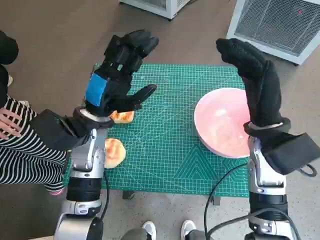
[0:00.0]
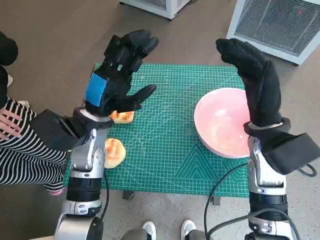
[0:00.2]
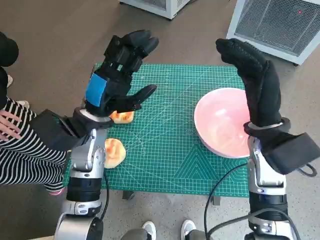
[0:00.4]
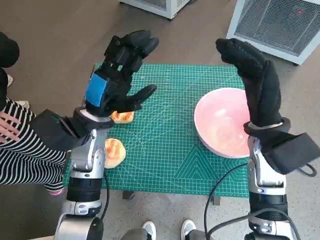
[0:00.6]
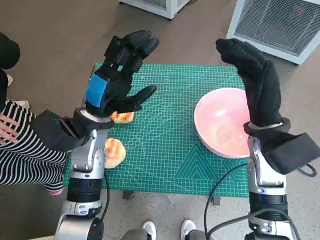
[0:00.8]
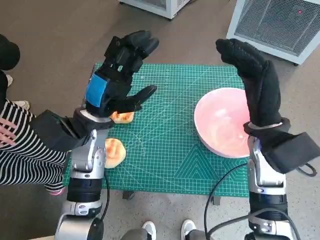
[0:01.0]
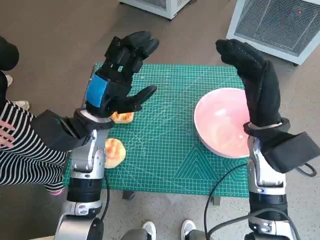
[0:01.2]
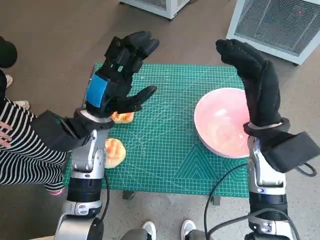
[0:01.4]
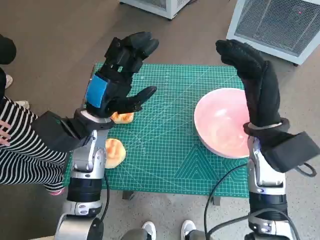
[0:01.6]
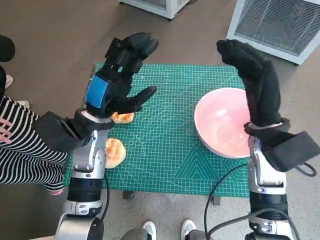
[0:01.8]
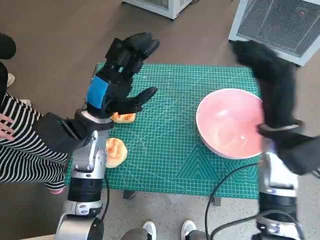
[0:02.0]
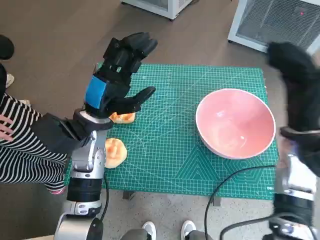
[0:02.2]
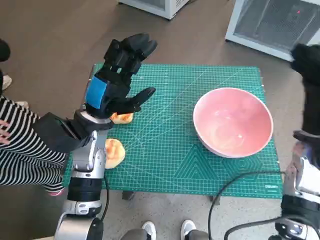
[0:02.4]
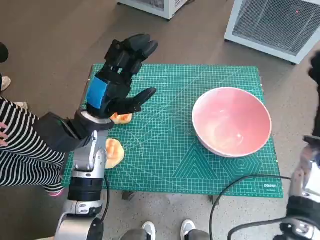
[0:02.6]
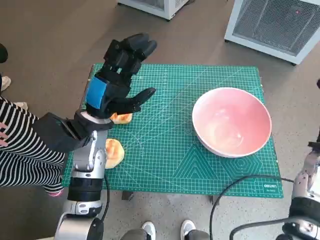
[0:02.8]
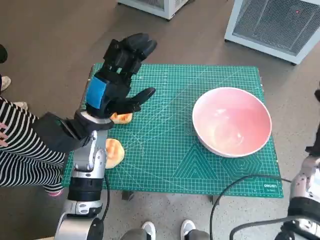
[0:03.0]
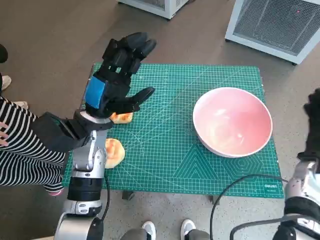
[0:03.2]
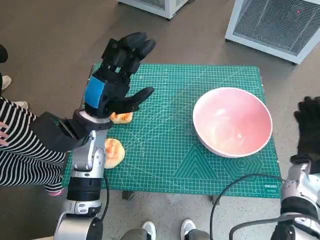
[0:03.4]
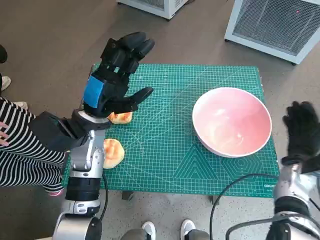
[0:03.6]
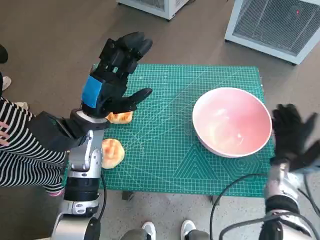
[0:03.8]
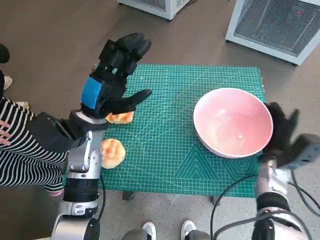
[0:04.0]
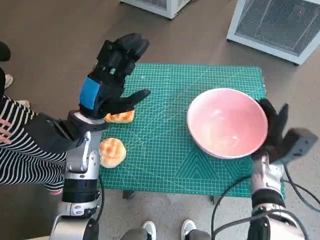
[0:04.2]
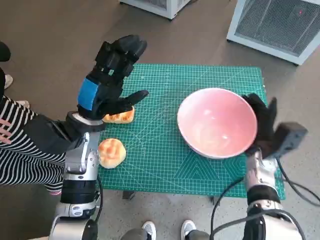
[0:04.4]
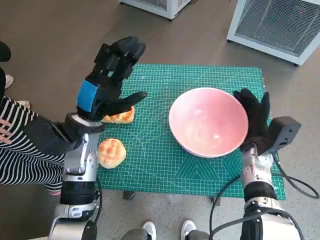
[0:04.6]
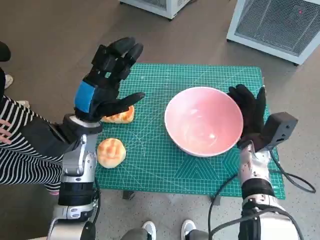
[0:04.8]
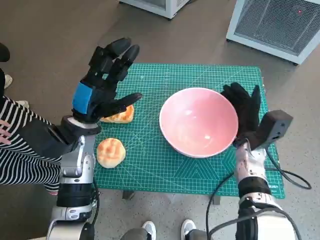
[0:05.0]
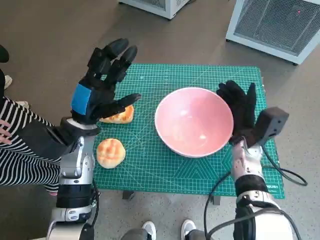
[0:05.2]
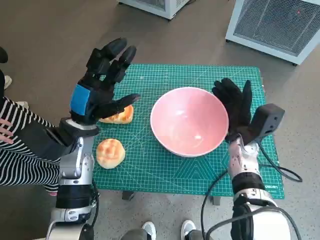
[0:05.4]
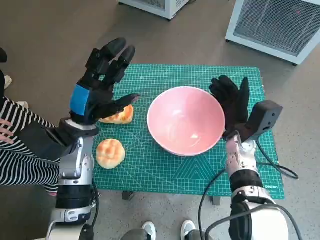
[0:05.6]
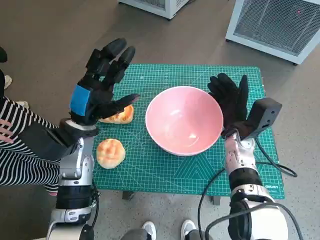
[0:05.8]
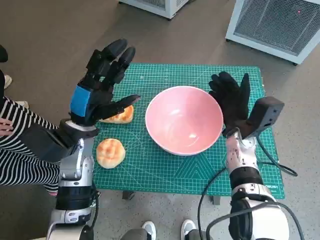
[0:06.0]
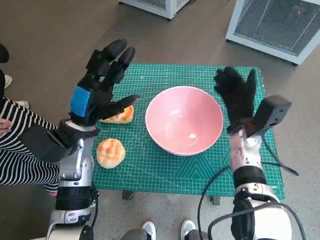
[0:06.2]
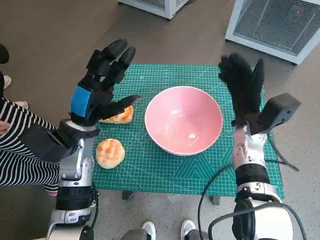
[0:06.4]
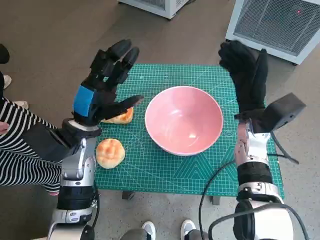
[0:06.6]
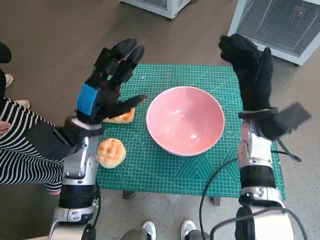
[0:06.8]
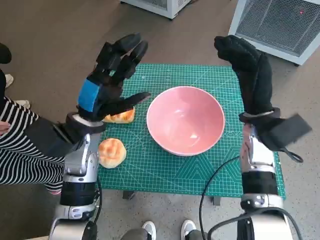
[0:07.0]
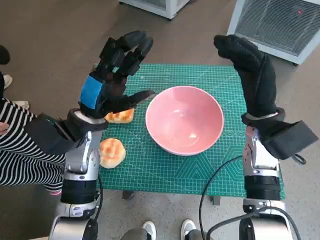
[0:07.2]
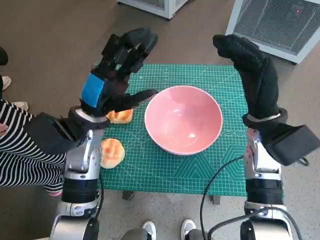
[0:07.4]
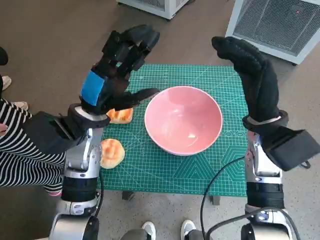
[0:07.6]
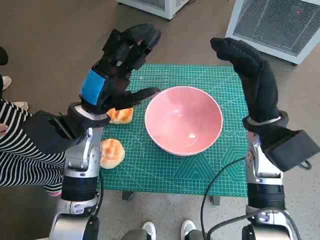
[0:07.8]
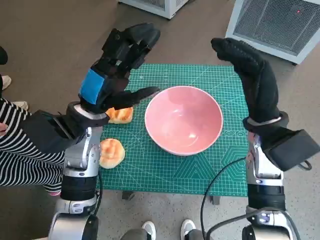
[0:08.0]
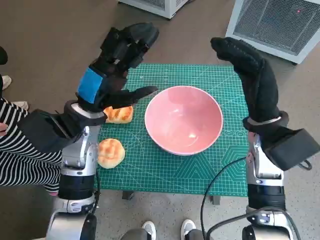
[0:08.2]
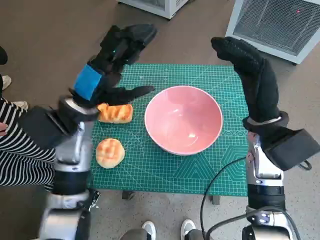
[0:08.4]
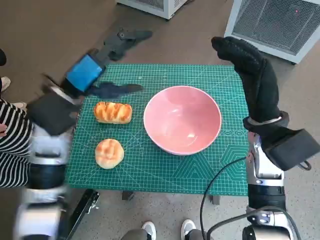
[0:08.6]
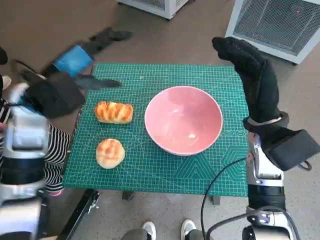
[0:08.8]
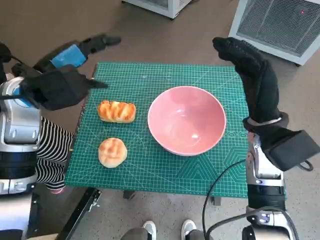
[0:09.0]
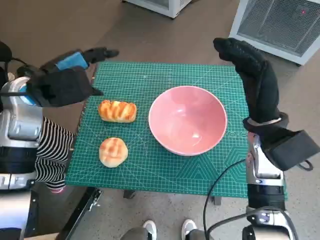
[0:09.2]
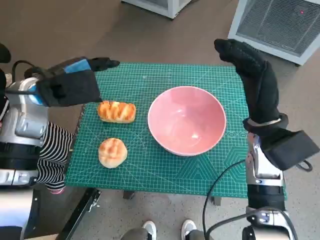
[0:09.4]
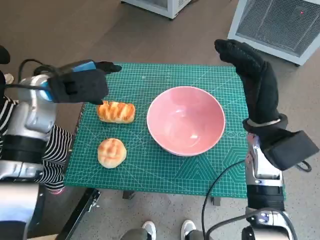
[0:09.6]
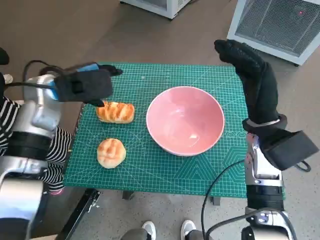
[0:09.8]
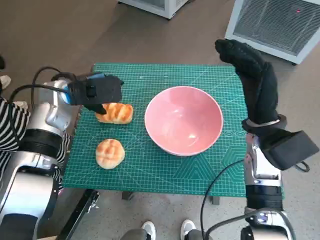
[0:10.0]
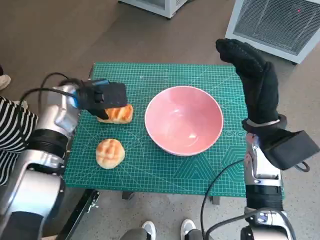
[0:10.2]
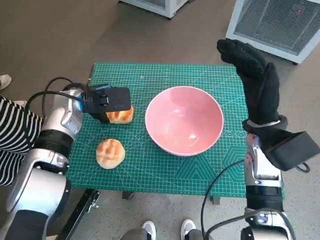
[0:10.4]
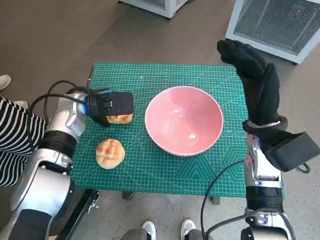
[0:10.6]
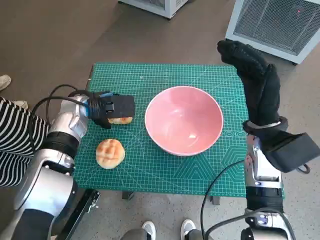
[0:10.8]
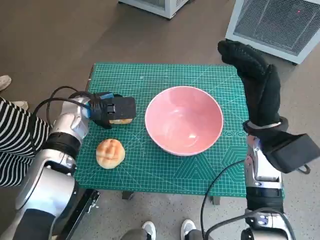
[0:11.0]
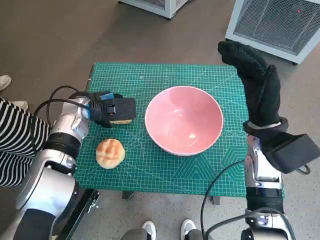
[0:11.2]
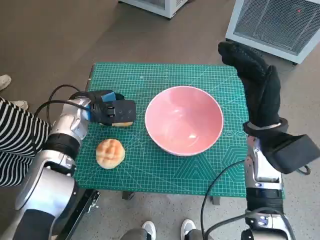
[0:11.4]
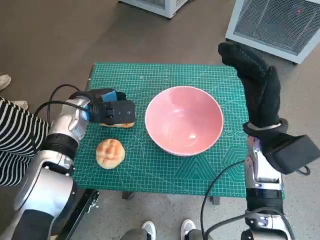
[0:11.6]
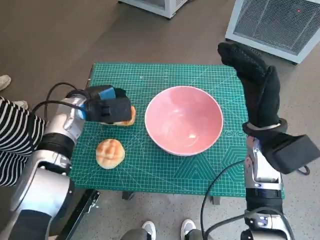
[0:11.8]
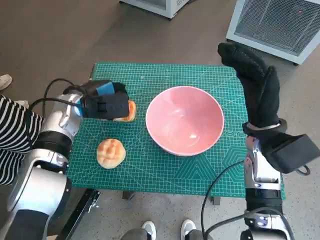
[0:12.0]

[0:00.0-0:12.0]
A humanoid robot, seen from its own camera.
Task of the whole recording: Push the bowl into the center of the table and put the bread into the bowl.
Step, 0:00.0 to 0:06.2: Move the pink bowl to the center of table with right hand.
Step, 0:06.4 to 0:11.4: Grasp the long bread with left hand.
0:01.6 to 0:03.0: The right hand goes approximately 15 cm to the right and downward.
0:03.0 to 0:04.4: The right hand moves to the left and downward, approximately 10 cm.
0:04.4 to 0:06.0: The right hand goes approximately 5 cm to the left.
0:06.0 to 0:07.6: The right hand heads upward, covering some 10 cm.
0:07.6 to 0:09.0: The left hand goes roughly 10 cm upward and to the left.
0:09.0 to 0:10.4: The left hand is displaced downward and forward by about 10 cm.
0:10.4 to 0:12.0: The hands stay close to where they were, moving slightly.

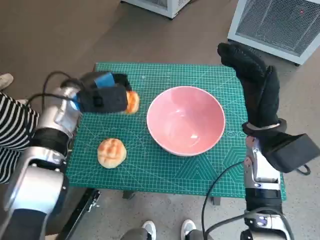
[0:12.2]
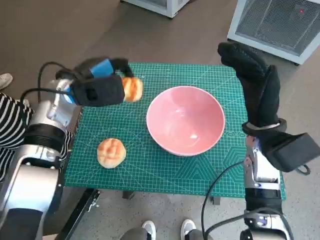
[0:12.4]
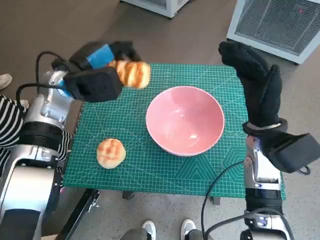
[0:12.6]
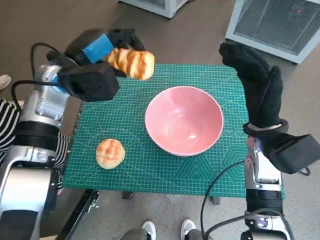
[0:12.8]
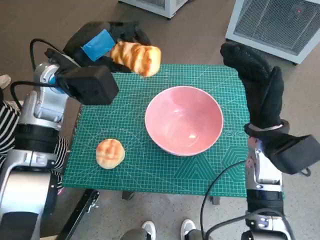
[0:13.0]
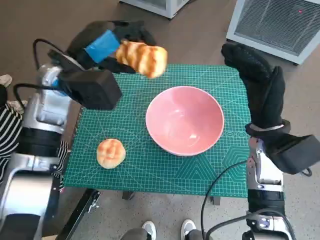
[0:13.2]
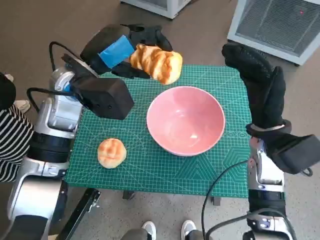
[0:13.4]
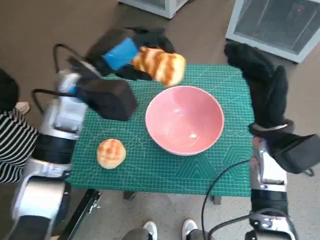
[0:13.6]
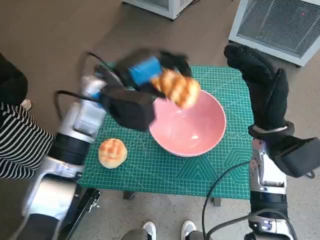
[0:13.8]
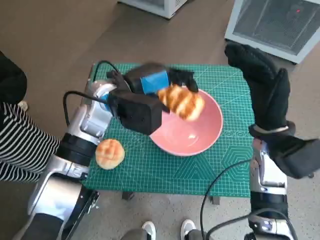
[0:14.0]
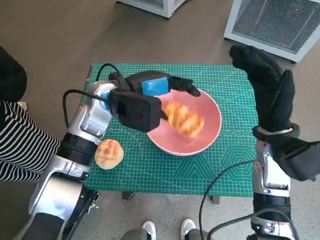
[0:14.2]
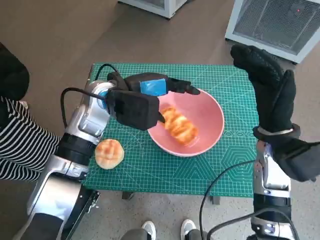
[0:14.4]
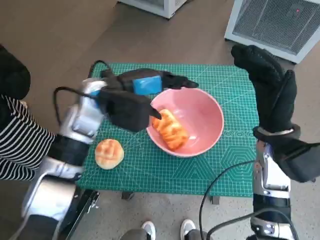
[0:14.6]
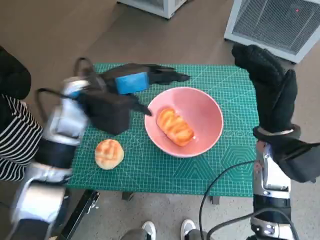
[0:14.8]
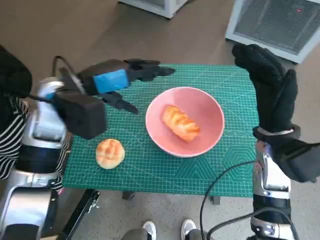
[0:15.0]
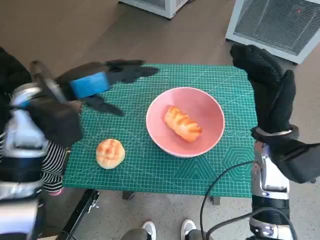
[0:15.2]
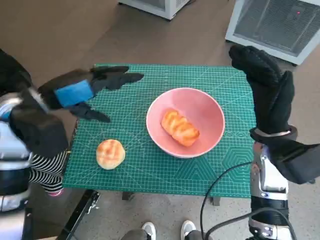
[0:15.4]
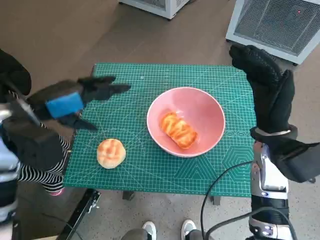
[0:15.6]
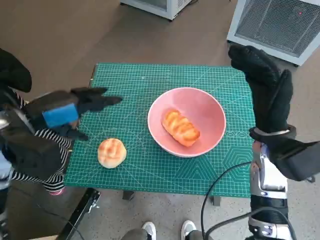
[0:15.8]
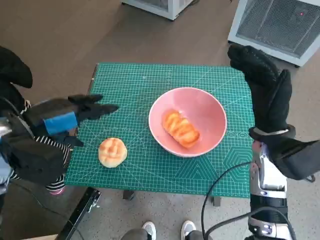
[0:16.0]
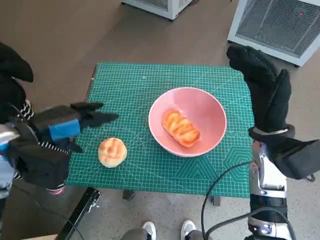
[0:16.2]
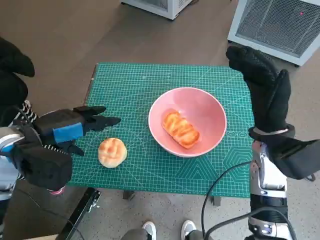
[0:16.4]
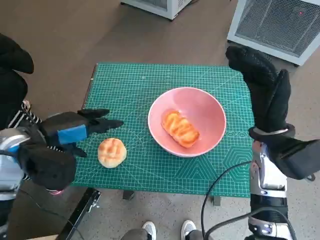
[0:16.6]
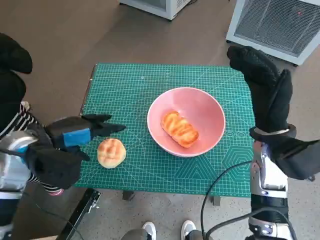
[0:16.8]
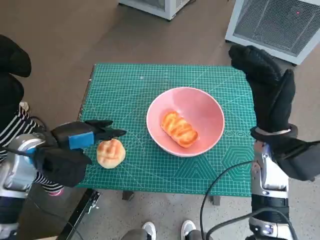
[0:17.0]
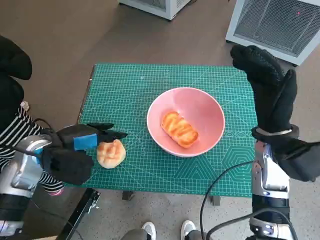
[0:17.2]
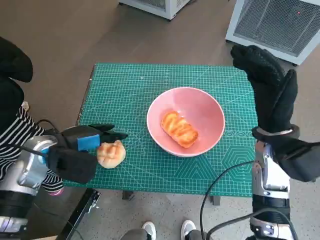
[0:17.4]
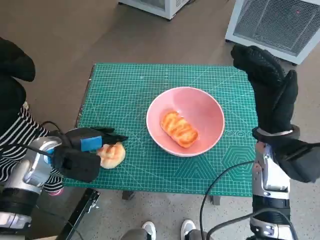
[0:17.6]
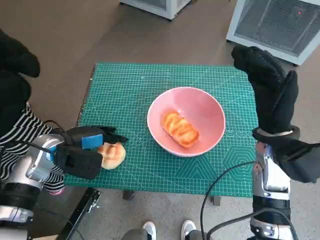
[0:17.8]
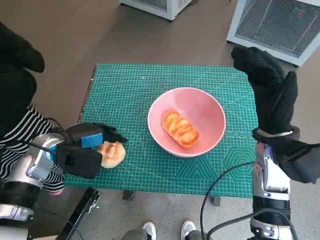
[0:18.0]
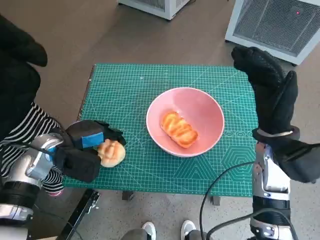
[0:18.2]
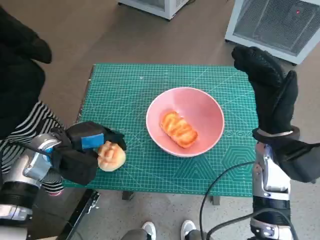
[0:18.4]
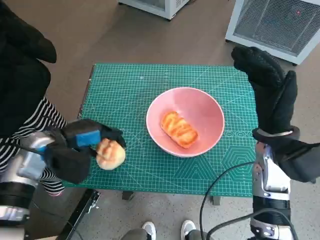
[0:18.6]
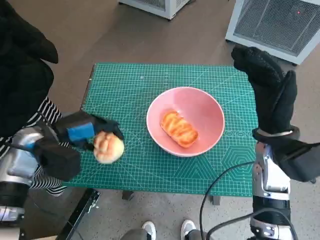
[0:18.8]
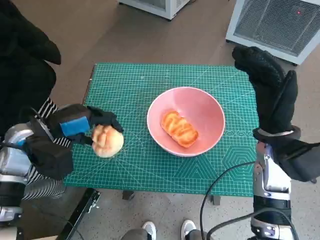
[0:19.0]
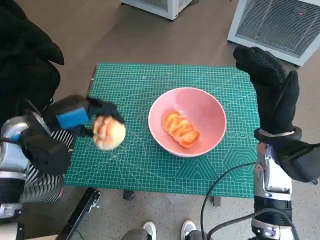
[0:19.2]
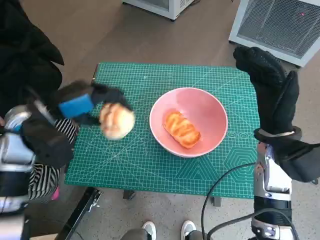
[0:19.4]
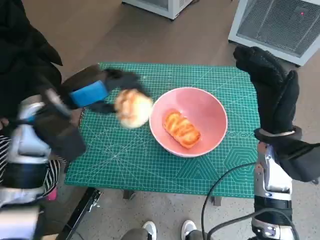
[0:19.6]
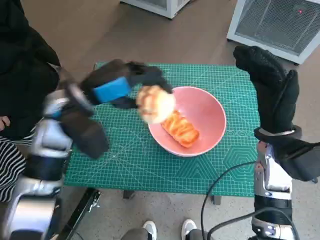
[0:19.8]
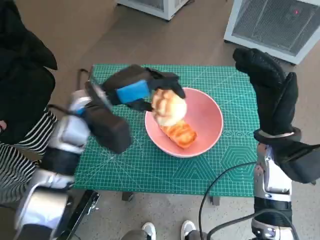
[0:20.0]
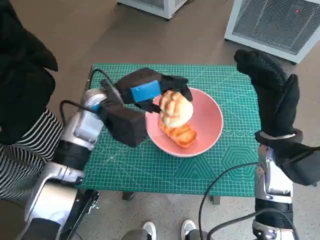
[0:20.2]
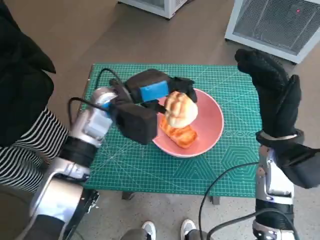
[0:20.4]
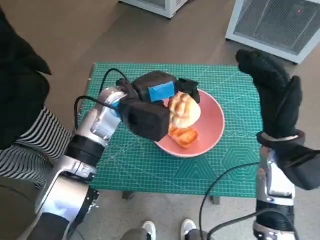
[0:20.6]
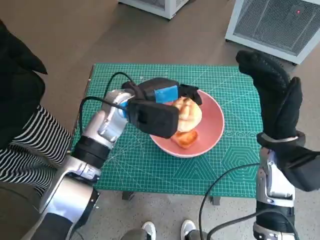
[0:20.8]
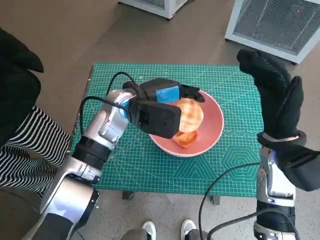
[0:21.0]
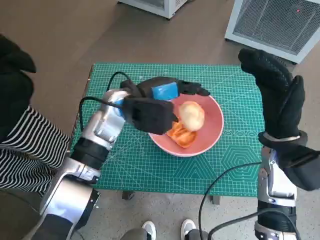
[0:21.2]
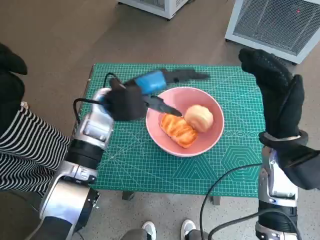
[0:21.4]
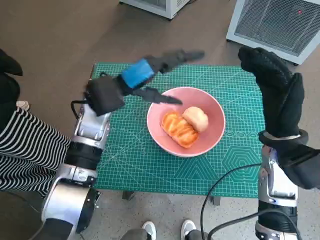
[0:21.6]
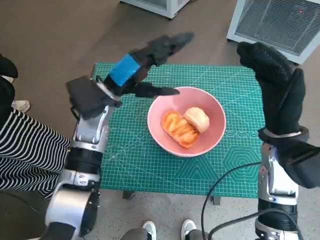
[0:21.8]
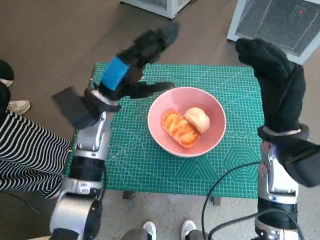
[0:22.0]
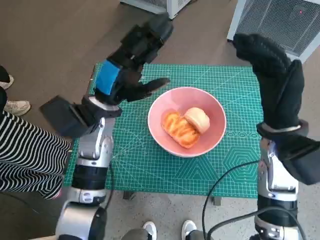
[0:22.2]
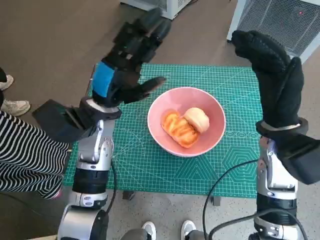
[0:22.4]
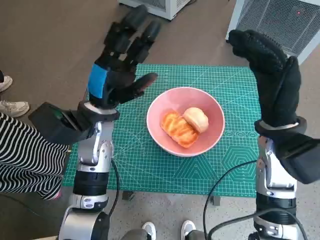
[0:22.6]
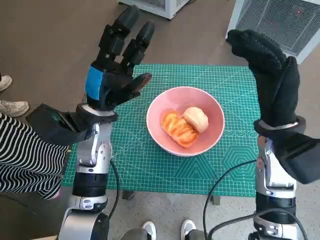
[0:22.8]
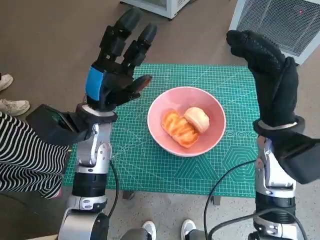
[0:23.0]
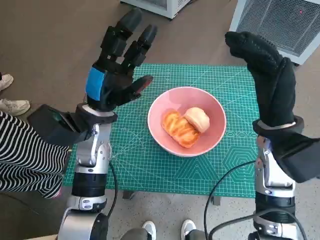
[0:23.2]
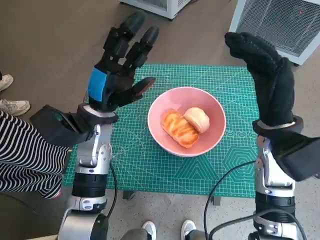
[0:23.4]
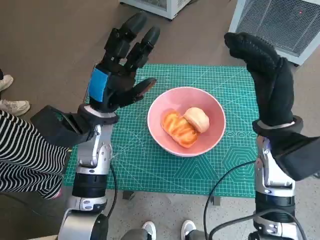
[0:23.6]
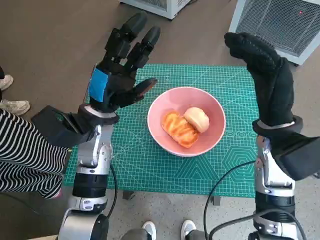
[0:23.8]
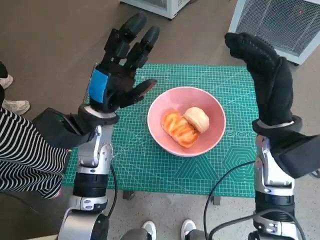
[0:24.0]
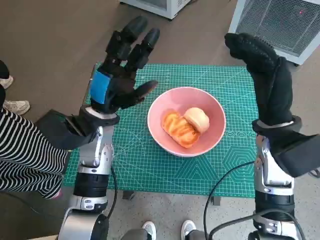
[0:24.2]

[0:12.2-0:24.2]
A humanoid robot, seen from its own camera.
Task of the whole recording: Push the bowl into the center of the table and put the bread into the bowl.
Step, 0:12.2 to 0:14.6: Place the long bread in pink bowl with left hand.
Step, 0:14.8 to 0:18.2: Grasp the round bread with left hand.
Step, 0:18.4 to 0:21.4: Place the round bread in pink bowl with left hand.
0:12.2 to 0:13.8: The left hand moves to the right and upward, approximately 10 cm.
0:13.8 to 0:15.2: The left hand moves to the left, roughly 5 cm.
0:15.2 to 0:16.6: The left hand travels backward, to the left and downward by approximately 10 cm.
0:16.6 to 0:18.2: The left hand travels downward by about 10 cm.
0:18.2 to 0:19.8: The left hand travels upward and to the right by some 15 cm.
0:19.8 to 0:21.2: The left hand is displaced to the right by approximately 10 cm.
0:21.2 to 0:22.6: The left hand shifts by about 5 cm.
0:22.6 to 0:24.2: Both hands stay about where they are.
